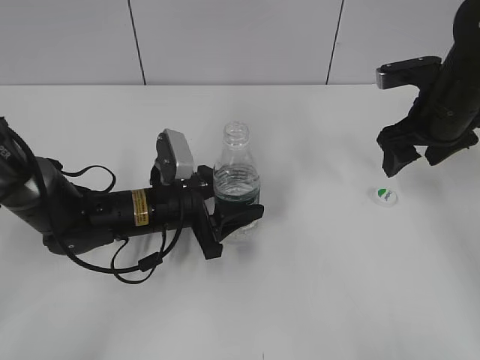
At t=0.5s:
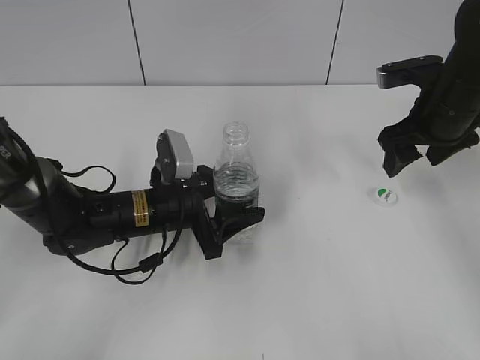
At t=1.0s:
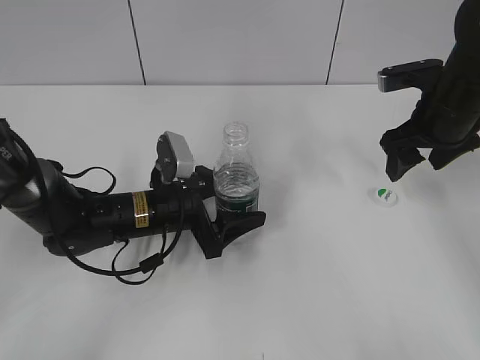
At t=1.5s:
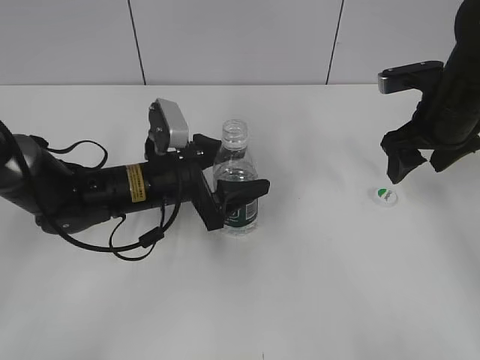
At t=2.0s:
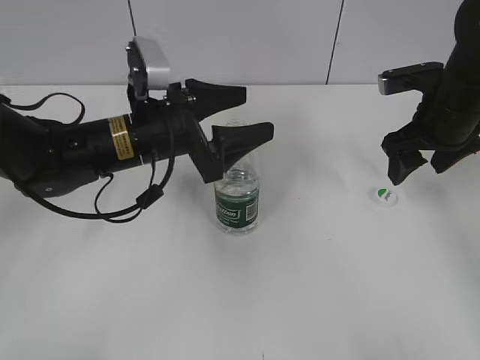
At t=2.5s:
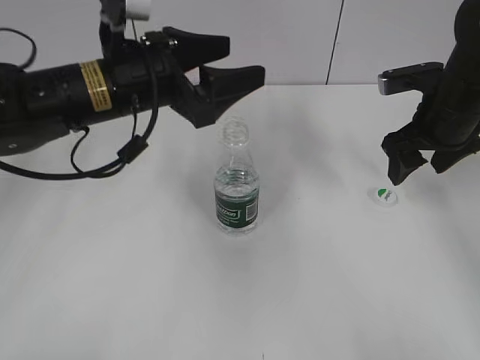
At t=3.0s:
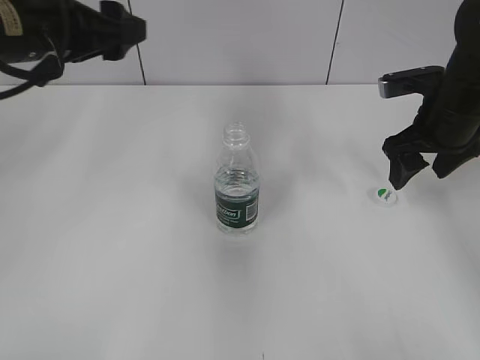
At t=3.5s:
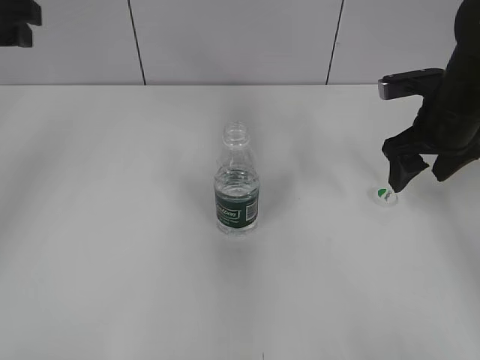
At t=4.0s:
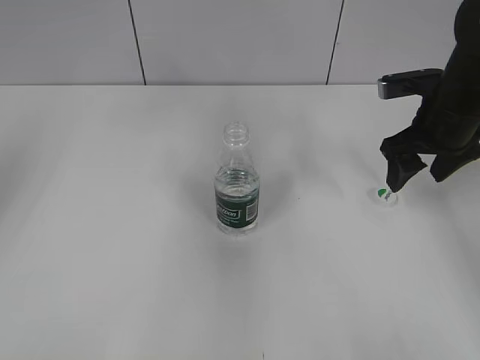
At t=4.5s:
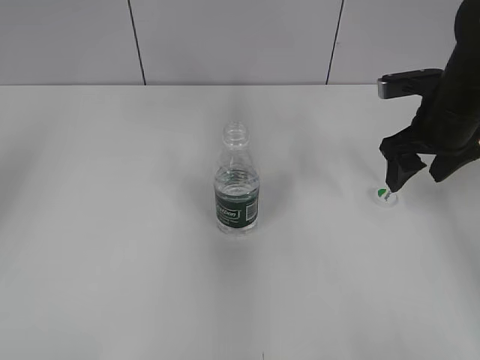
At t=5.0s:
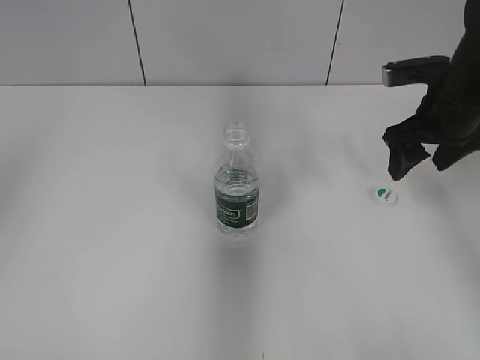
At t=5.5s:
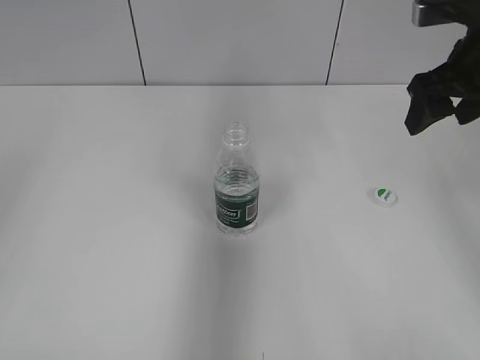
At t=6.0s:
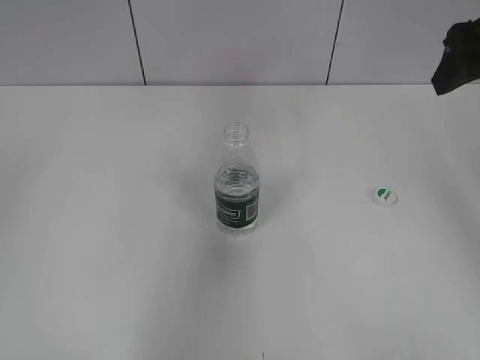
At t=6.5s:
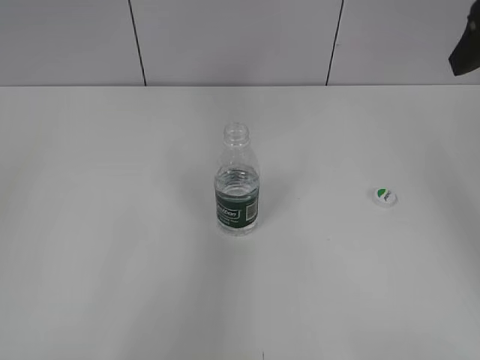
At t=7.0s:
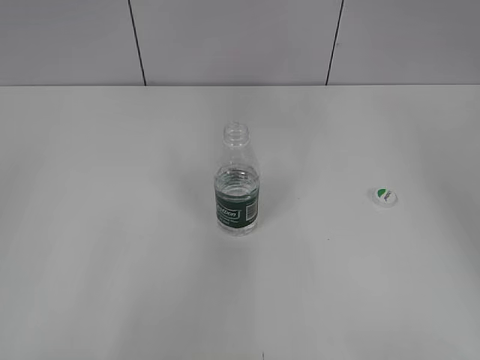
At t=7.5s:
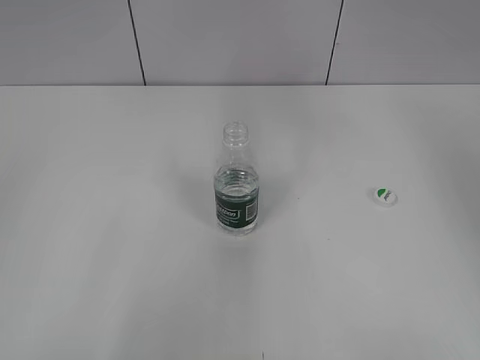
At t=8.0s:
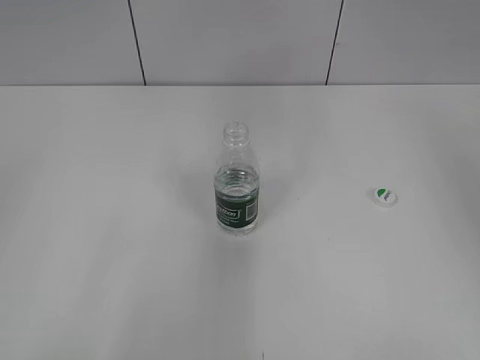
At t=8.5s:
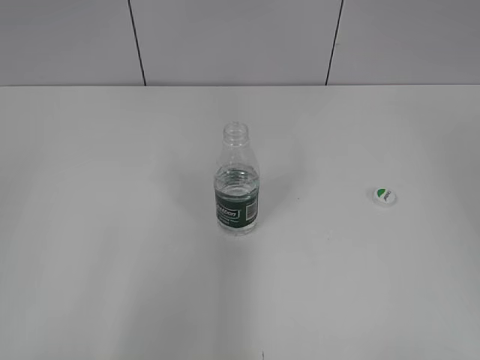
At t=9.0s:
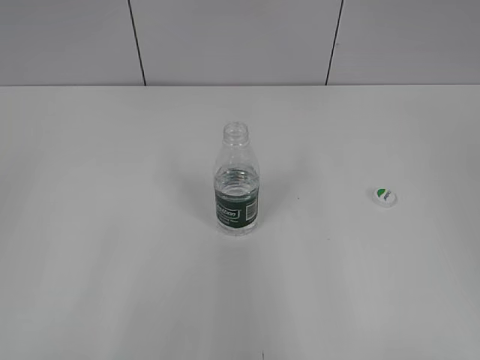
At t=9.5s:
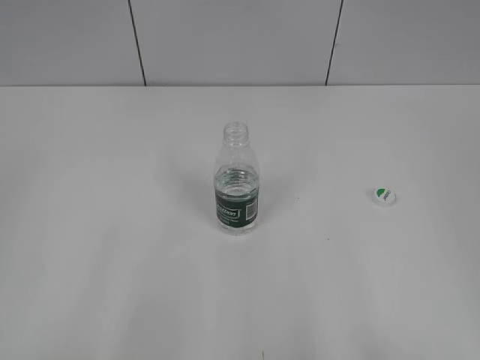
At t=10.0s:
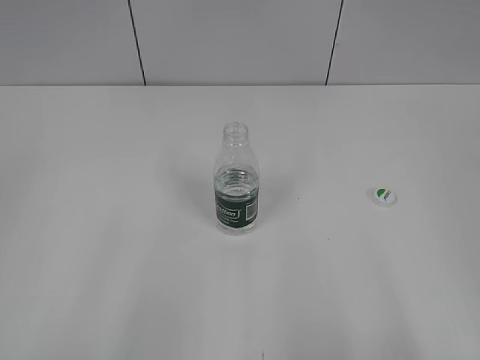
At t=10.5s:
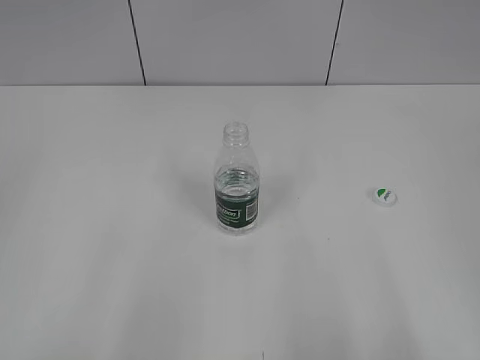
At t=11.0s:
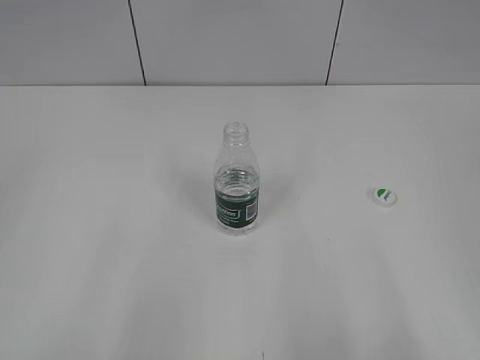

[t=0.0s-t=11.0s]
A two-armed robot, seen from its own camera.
Step, t=0.0s to t=1.5s: Place the bottle on the table with the left gripper.
t=0.0s to t=2.0s: The left gripper shifts roughly 10 cm upward, and opens its fingers.
t=2.0s to t=3.5s: The left gripper heads to the left and upward, covering about 25 cm.
t=3.5s to t=5.5s: The right gripper goes roughly 10 cm upward. Meanwhile the left gripper heads backward, covering about 20 cm.
t=5.5s to t=7.5s: The right gripper travels to the right, upward and backward by some 10 cm; the left gripper goes about 15 cm backward and downward.
t=9.0s to t=11.0s: The right gripper shifts some 15 cm downward.

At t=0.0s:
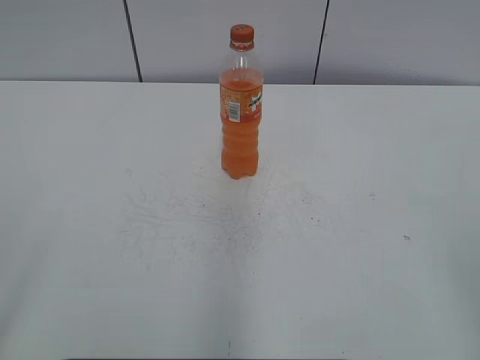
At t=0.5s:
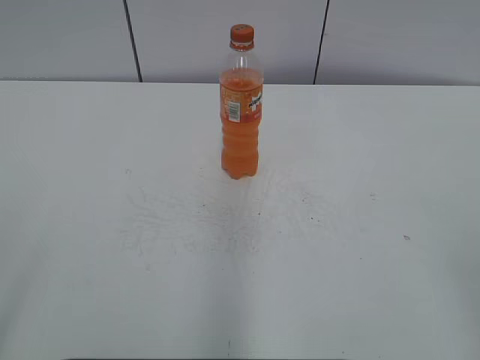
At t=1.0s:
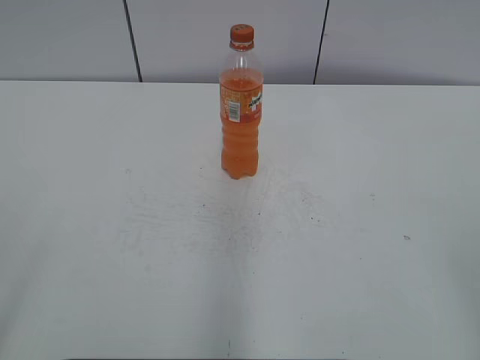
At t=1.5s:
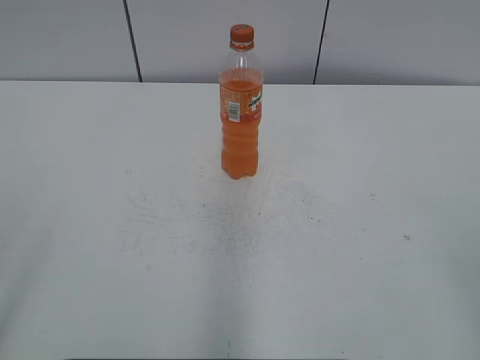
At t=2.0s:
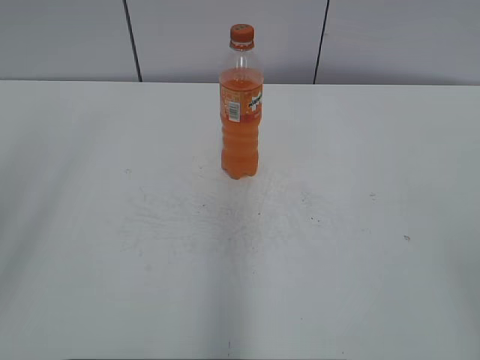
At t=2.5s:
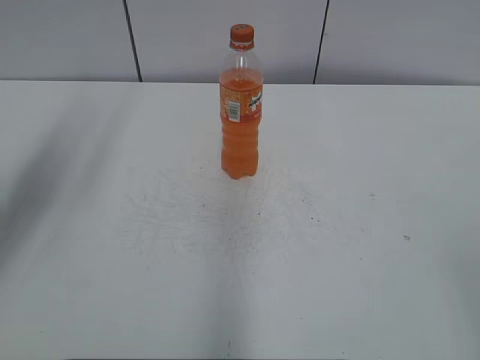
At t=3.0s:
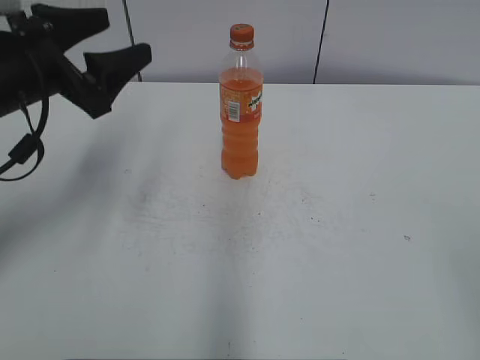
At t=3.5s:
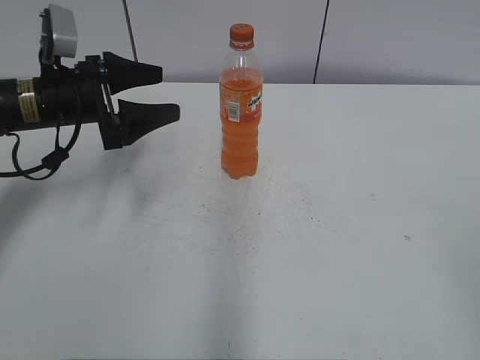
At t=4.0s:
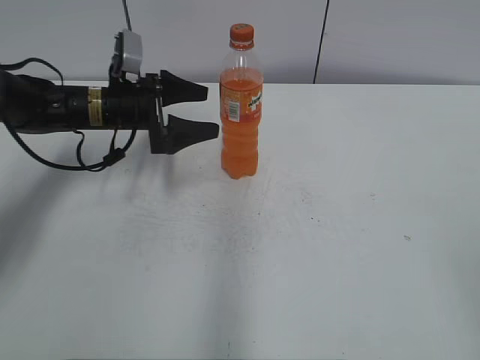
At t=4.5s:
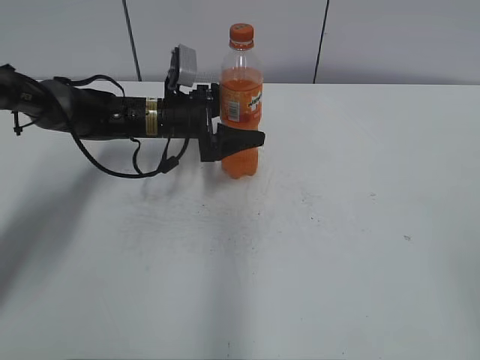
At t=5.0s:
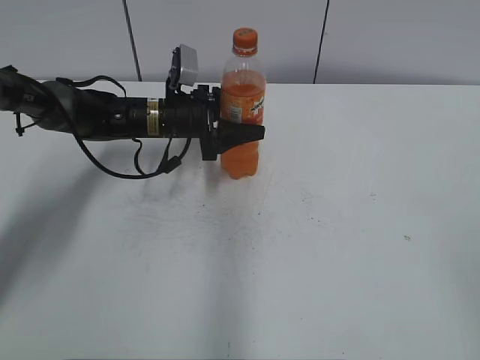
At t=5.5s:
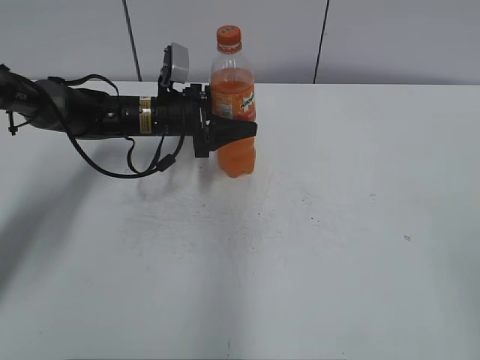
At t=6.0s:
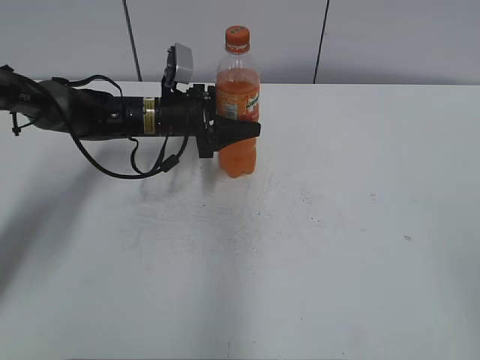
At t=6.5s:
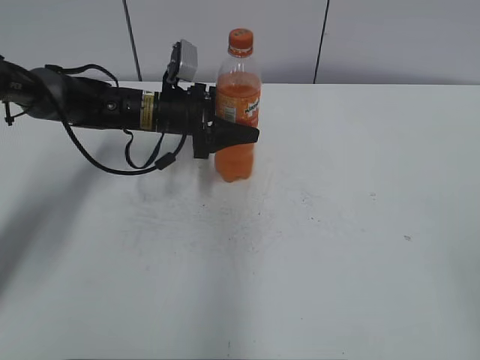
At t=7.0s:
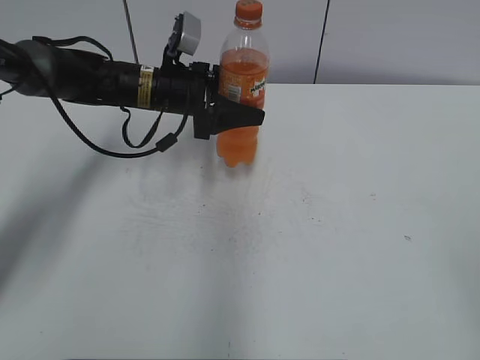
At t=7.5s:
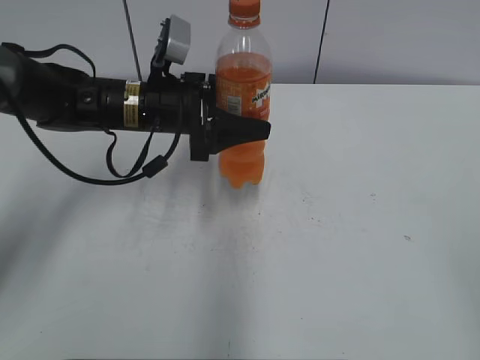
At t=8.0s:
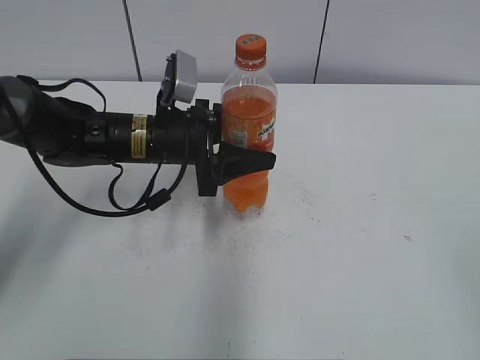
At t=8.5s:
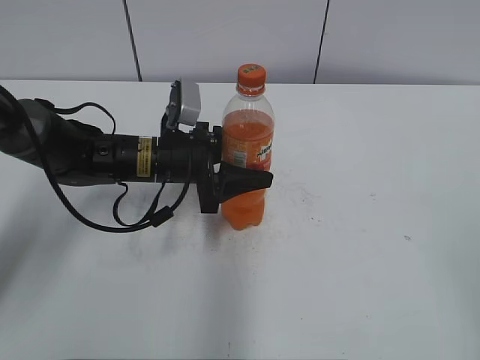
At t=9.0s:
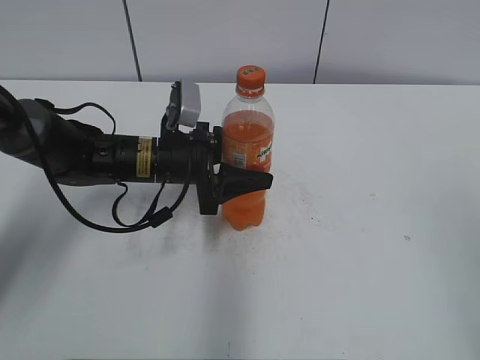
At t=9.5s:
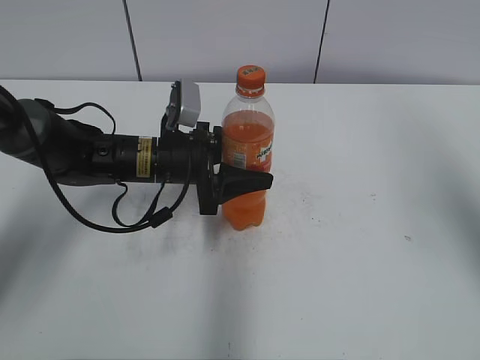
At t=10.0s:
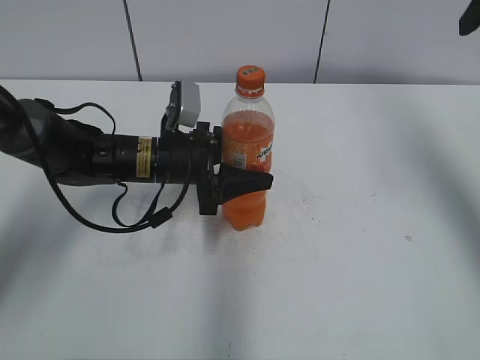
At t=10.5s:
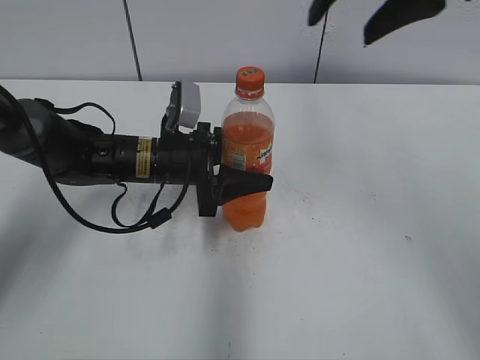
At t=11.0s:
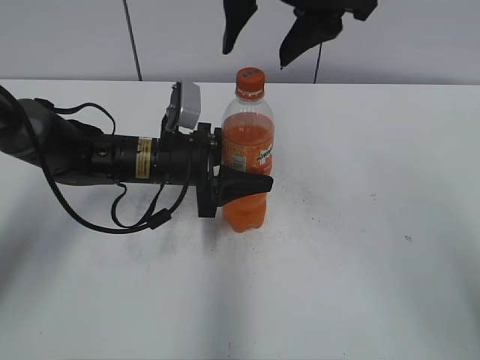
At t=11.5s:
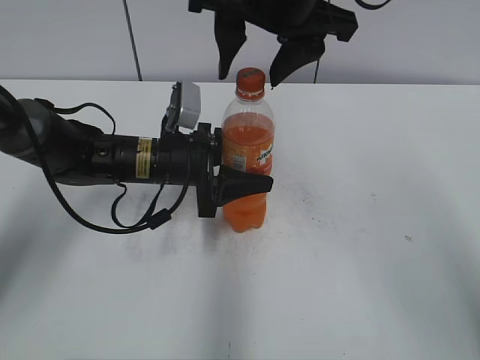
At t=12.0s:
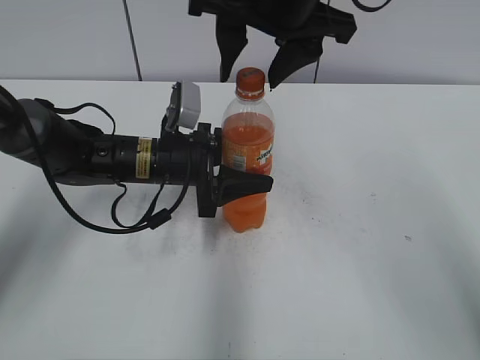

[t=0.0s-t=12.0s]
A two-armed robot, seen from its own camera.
Step, t=0.0s to t=5.0s: Grab the Mirinda with the left hand.
Step, t=5.5s to t=9.0s: Move the Mirinda from left to right.
t=2.0s to t=4.0s: The left gripper is displaced forward and downward by roughly 40 cm, and opens up.
t=4.0s to t=6.0s: The left gripper goes roughly 5 cm to the right, and closes.
t=6.0s to t=8.0s: The left gripper is displaced backward by about 10 cm.
t=8.0s to t=10.0s: The right gripper goes about 30 cm forward.
t=10.0s to t=12.0s: The right gripper shifts some 25 cm to the left.

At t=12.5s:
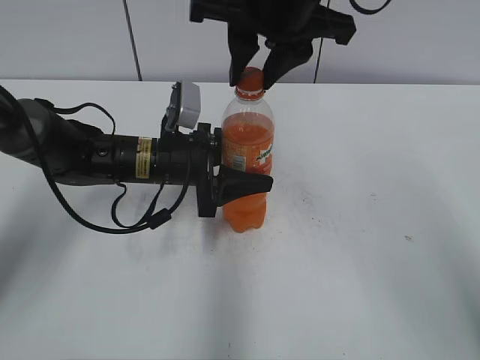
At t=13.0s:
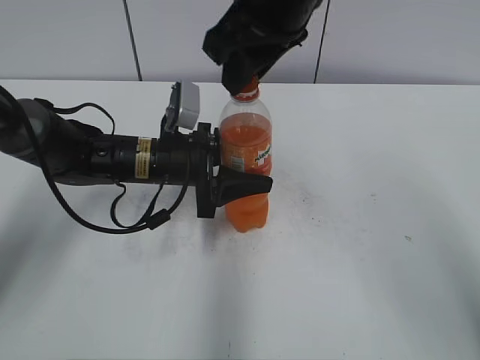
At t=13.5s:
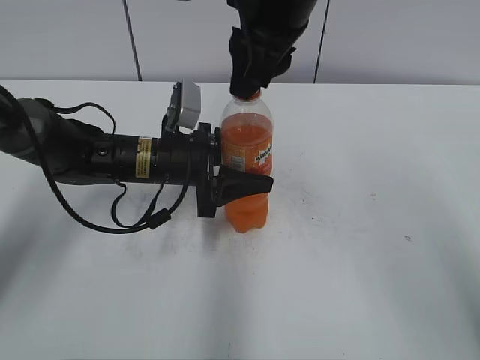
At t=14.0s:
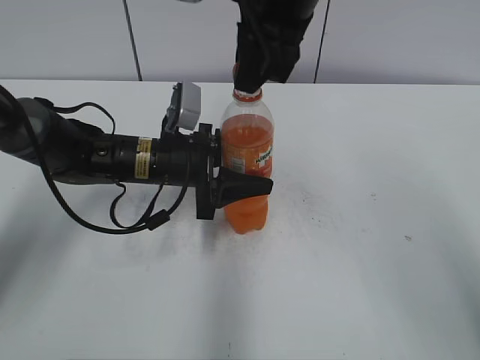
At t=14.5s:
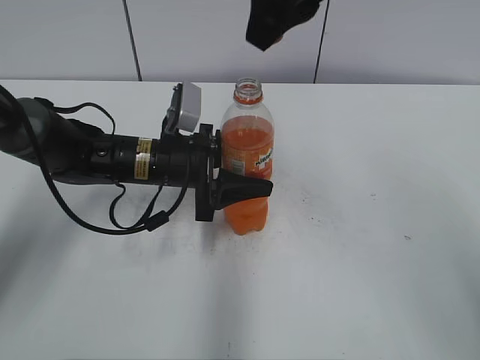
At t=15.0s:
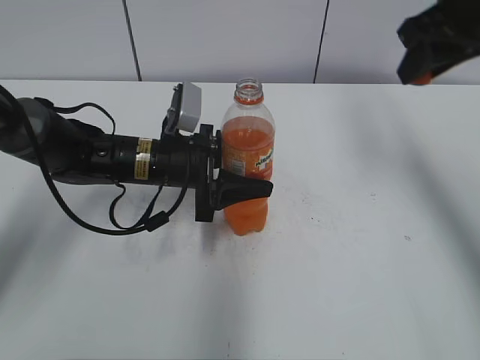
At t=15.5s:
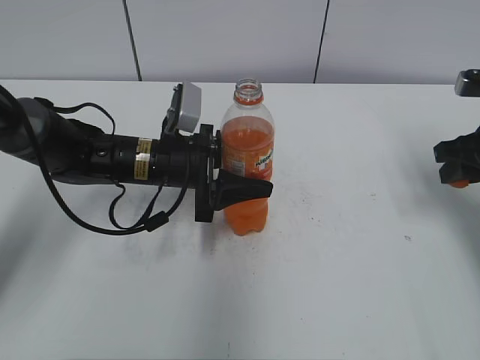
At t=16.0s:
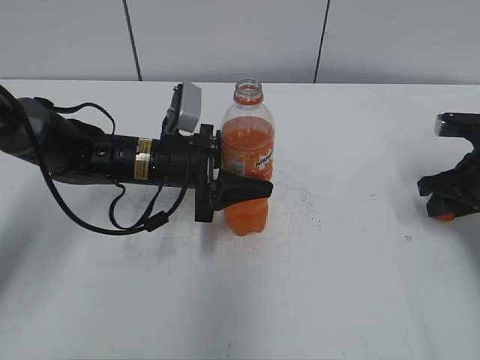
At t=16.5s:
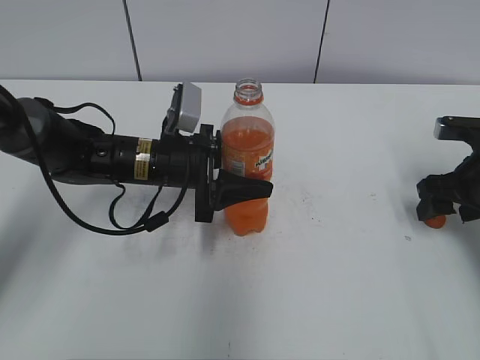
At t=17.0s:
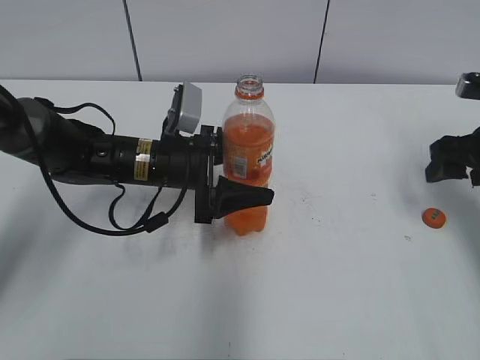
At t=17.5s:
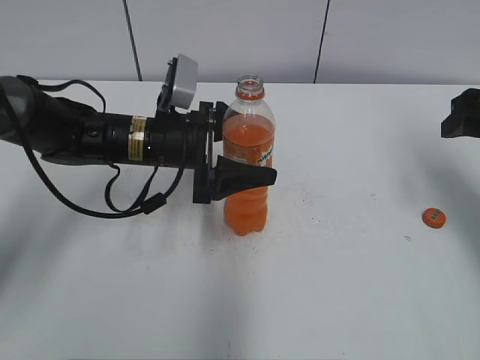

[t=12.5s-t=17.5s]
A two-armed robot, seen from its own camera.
Step, t=14.5s to t=16.5s: Place the bottle cap on the right.
t=12.5s to t=15.0s: The right gripper heads to the right, covering approximately 20 cm.
t=15.0s to t=17.5s: The left gripper opens its fingers, while the right gripper travels downward and to the right by roughly 15 cm, and opens.
